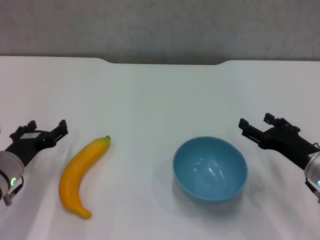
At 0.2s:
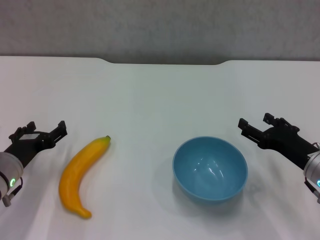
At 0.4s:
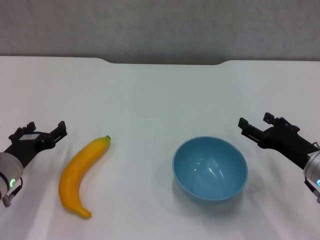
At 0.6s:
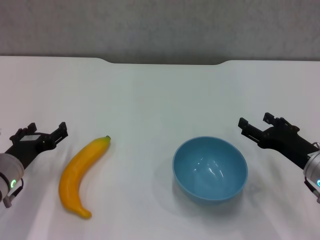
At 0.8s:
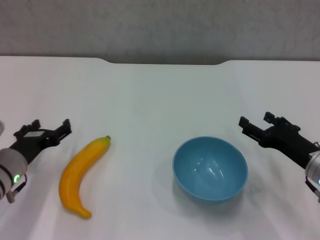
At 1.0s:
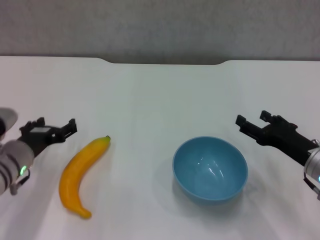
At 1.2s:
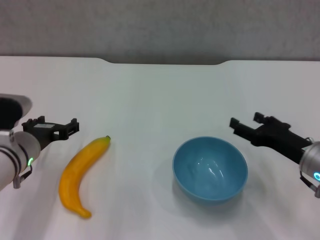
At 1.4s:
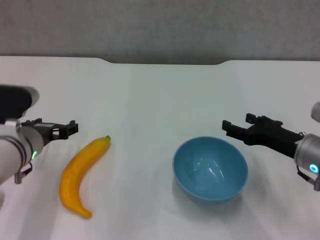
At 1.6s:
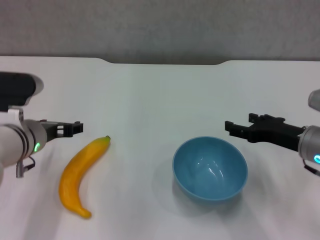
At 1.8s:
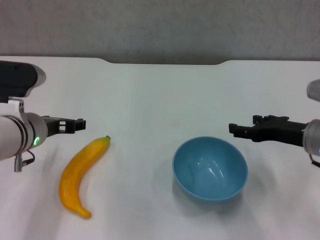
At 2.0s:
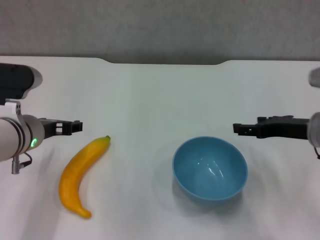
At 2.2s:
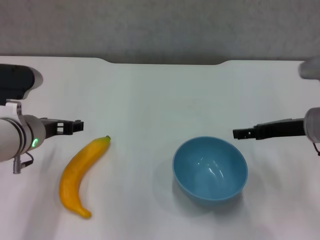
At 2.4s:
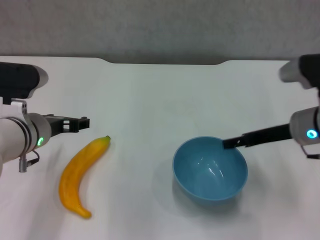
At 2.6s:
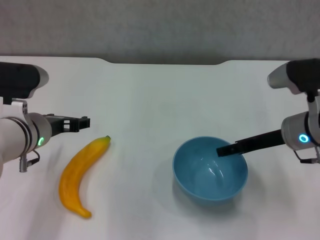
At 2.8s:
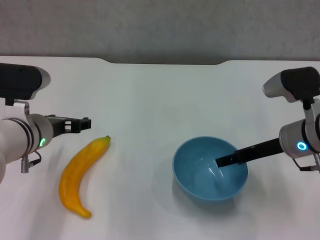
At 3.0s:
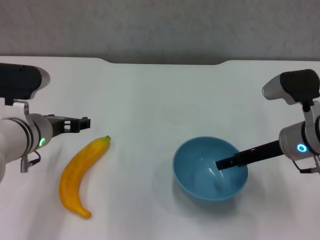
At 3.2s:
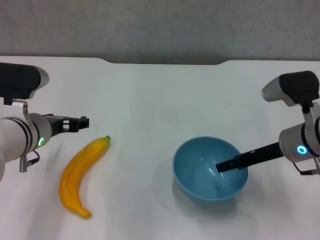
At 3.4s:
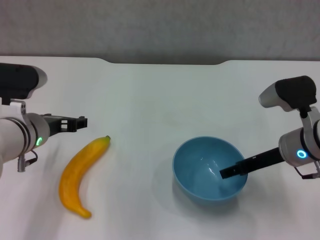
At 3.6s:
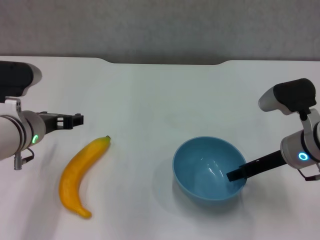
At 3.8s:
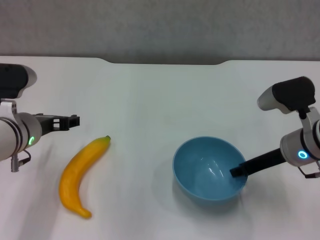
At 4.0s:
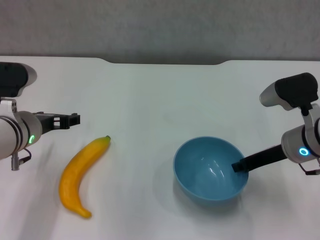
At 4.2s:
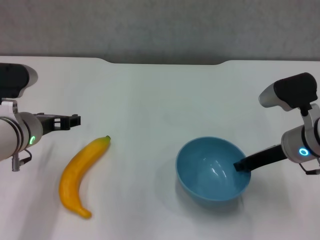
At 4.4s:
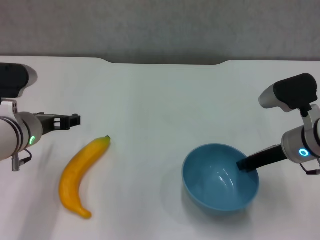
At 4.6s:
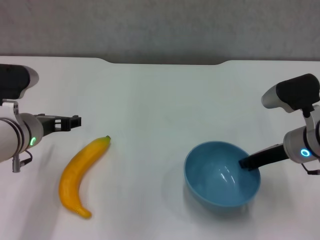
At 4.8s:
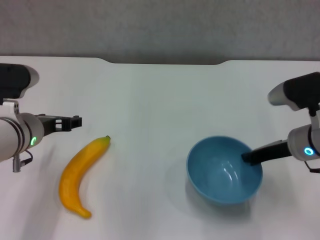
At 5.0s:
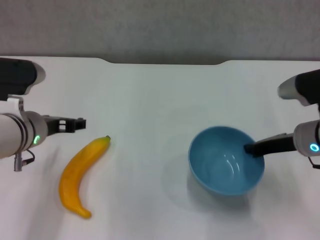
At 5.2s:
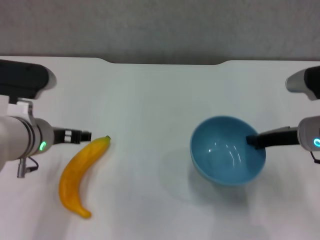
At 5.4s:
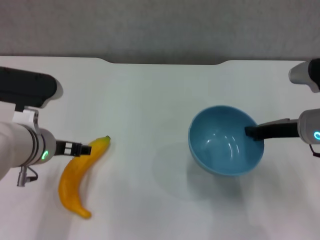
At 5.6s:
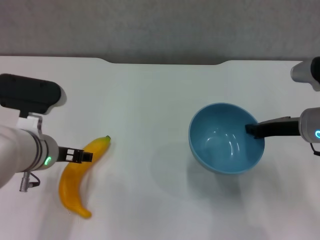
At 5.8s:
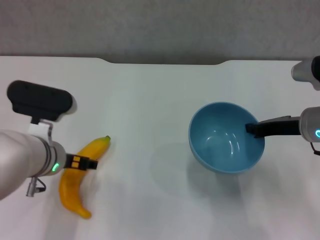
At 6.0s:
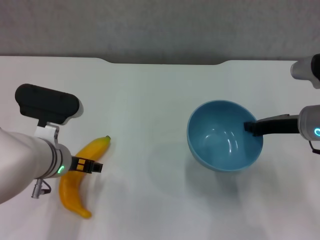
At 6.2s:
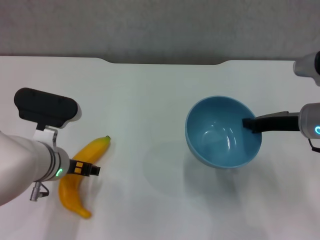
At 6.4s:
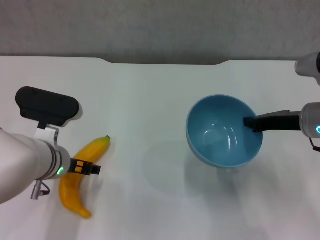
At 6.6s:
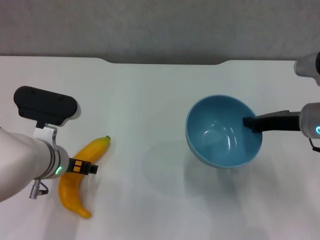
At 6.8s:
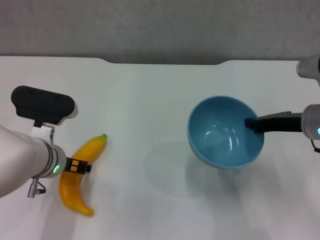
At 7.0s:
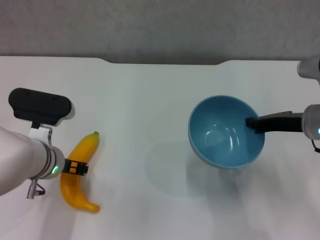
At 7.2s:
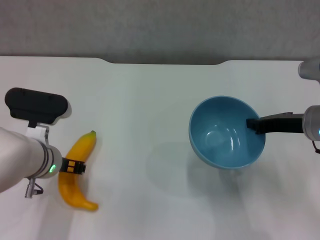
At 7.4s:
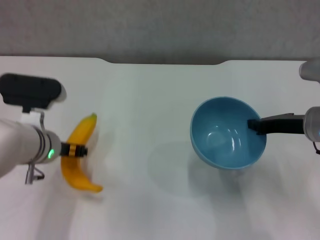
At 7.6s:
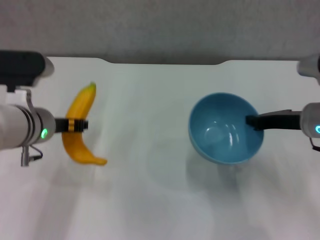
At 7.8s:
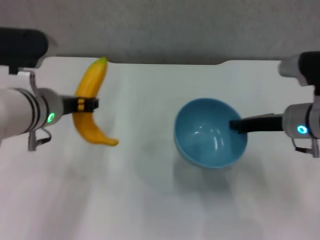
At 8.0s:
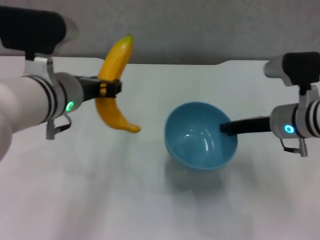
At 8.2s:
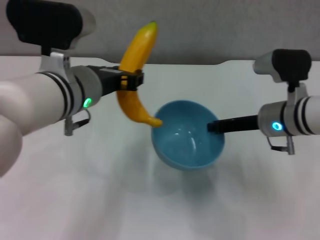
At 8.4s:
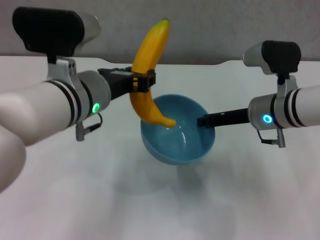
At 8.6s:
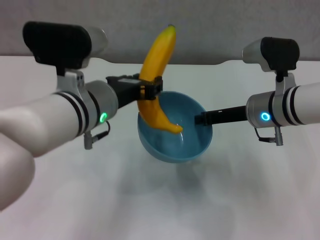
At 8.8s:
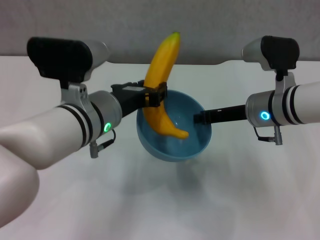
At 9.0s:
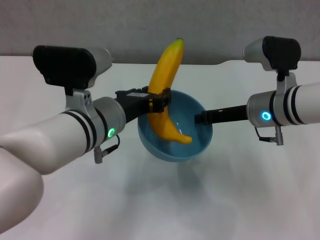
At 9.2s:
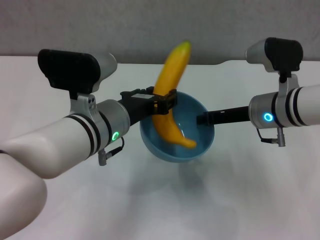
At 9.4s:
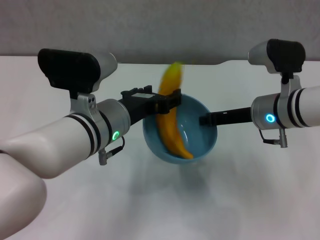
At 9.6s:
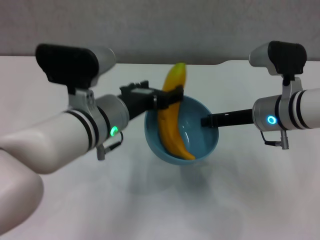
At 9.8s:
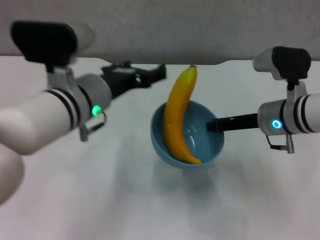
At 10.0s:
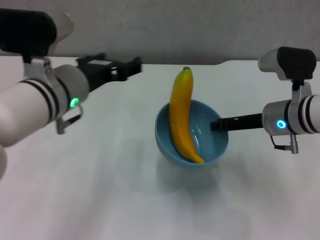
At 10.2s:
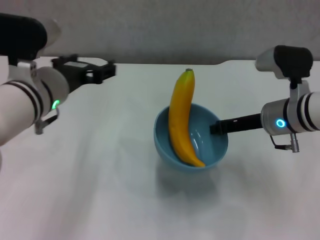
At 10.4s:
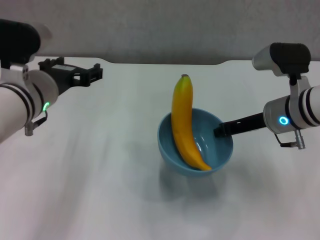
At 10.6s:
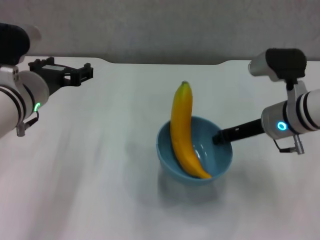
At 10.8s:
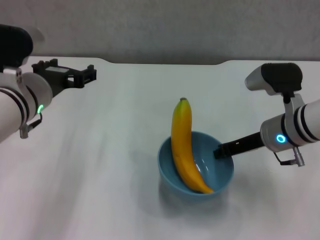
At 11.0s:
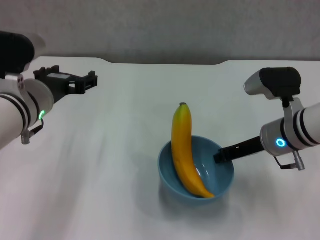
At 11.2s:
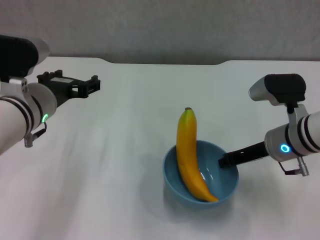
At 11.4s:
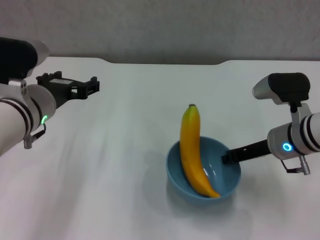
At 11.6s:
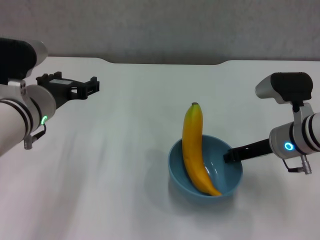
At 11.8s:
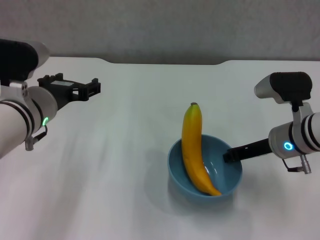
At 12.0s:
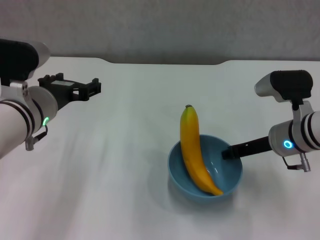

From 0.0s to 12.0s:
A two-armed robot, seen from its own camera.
Step, from 0.0s to 4.4s: Grasp the blue bowl with right gripper.
Step, from 4.6s to 5.4s: Lift the blue bowl with right gripper.
Step, from 5.6s to 7.0s: Grasp the banana with left gripper.
Step, from 7.2s to 9.4s: Place the banana in the blue bowl with left gripper.
From 0.0s to 1.6s: The left gripper heads upward and to the right, covering approximately 10 cm. The right gripper moves some 5 cm.
From 3.0s to 4.4s: The right gripper closes its fingers.
From 4.4s to 6.0s: The left gripper changes place by some 5 cm.
From 6.0s to 7.6s: The left gripper heads upward, covering roughly 5 cm, and closes its fingers.
From 7.6s to 9.0s: The left gripper travels to the right by some 10 cm; the right gripper shifts roughly 5 cm to the left.
From 9.0s to 10.4s: The left gripper goes some 10 cm to the left, and opens its fingers.

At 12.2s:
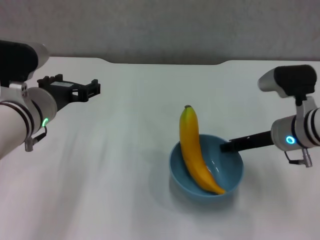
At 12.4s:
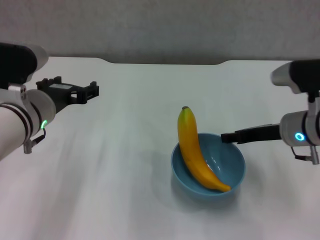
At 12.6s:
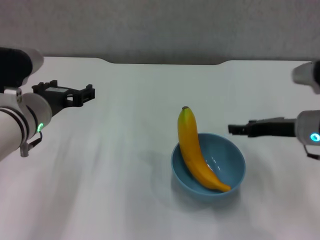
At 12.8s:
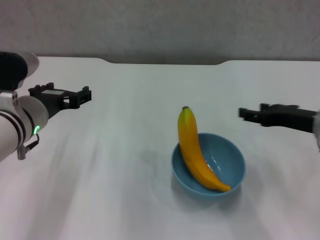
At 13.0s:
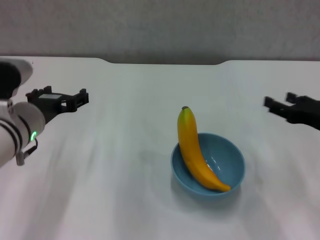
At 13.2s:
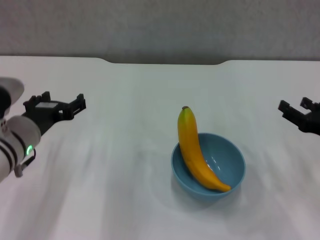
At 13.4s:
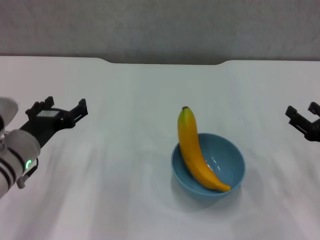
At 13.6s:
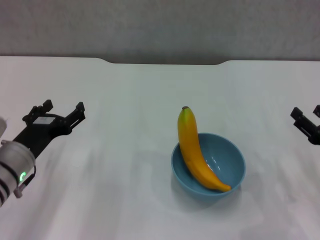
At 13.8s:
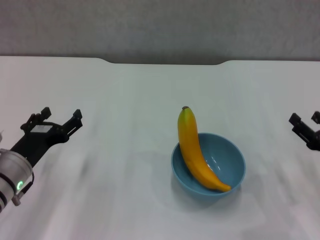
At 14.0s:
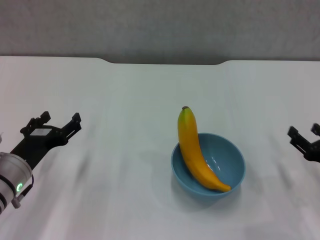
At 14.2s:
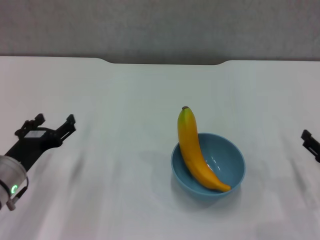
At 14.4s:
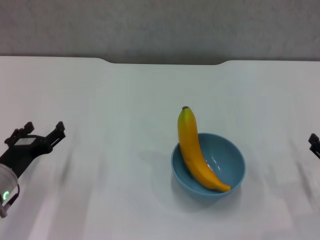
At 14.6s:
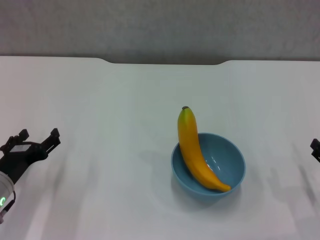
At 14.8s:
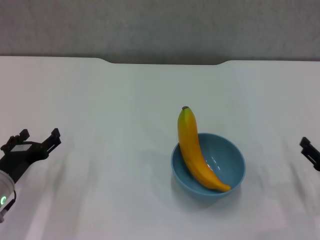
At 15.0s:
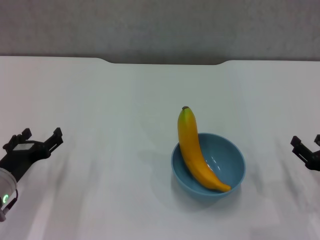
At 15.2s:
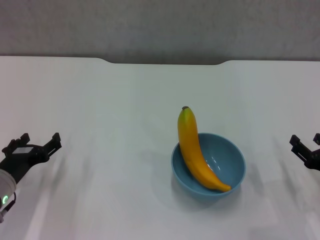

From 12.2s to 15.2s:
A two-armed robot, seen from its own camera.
From 12.2s to 13.8s: The left gripper is displaced downward and to the left by about 15 cm. Meanwhile the right gripper moves backward and to the right, roughly 15 cm, and opens its fingers.
From 13.8s to 15.2s: The grippers make only small movements.
